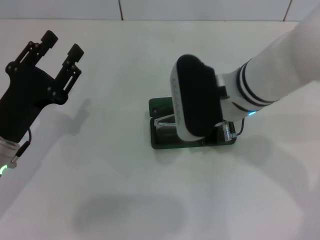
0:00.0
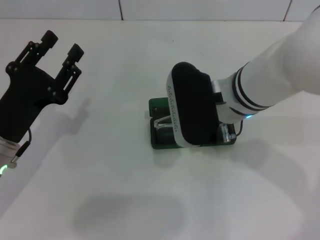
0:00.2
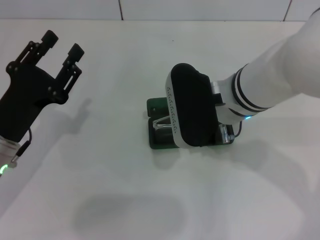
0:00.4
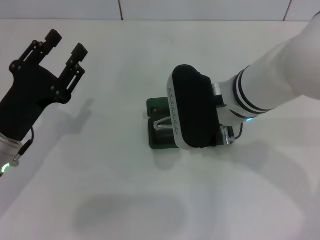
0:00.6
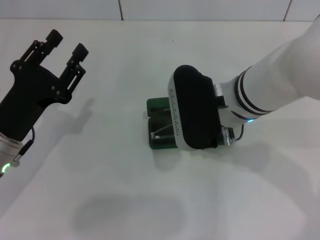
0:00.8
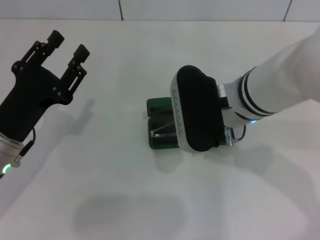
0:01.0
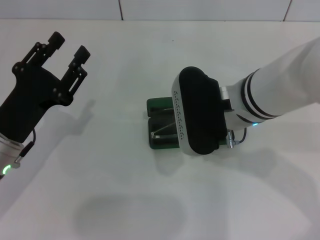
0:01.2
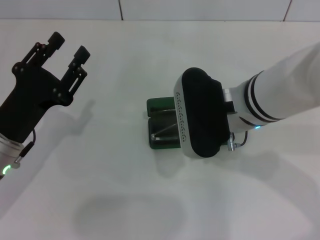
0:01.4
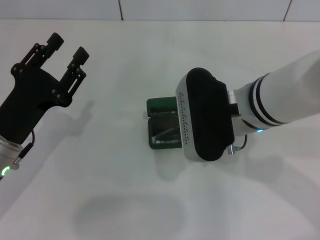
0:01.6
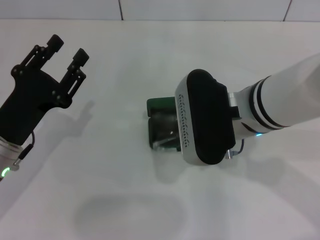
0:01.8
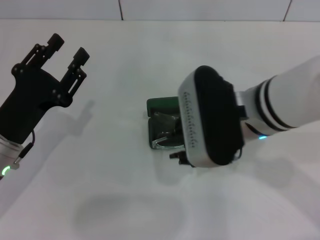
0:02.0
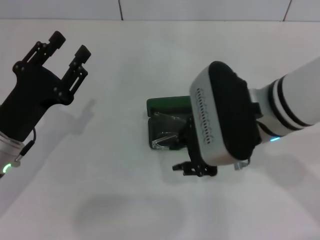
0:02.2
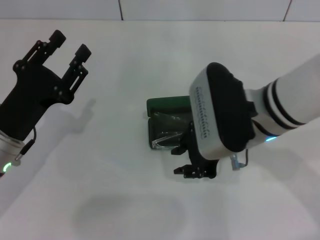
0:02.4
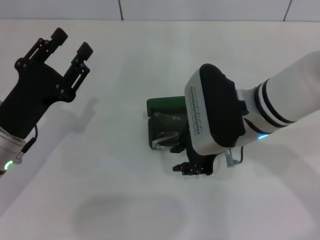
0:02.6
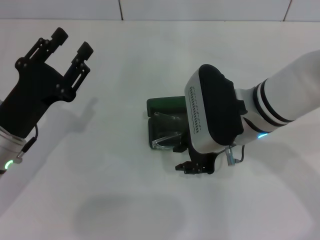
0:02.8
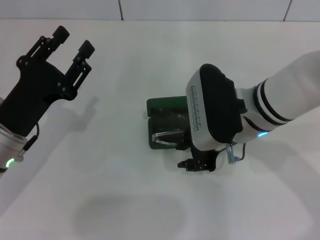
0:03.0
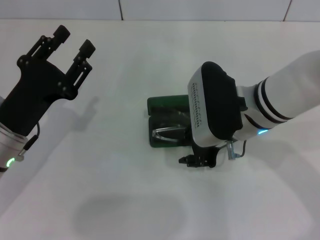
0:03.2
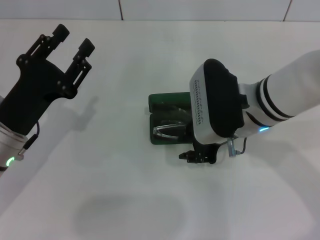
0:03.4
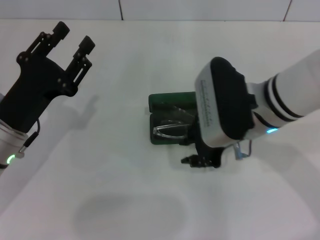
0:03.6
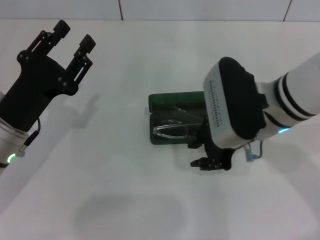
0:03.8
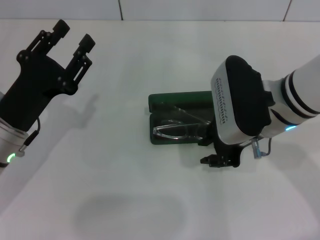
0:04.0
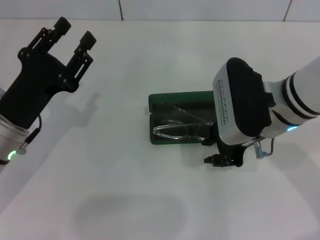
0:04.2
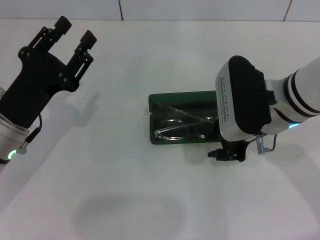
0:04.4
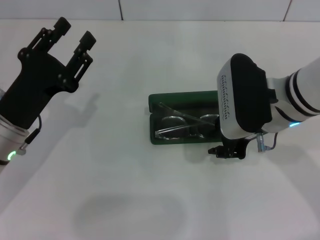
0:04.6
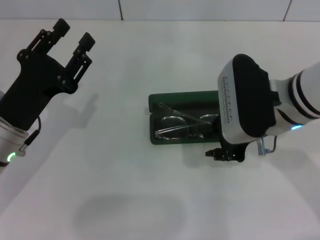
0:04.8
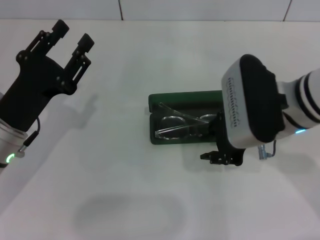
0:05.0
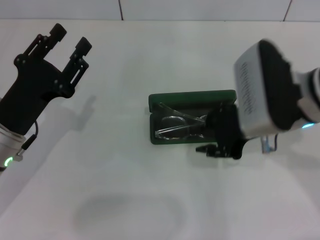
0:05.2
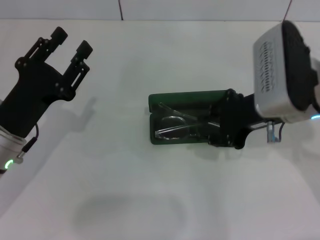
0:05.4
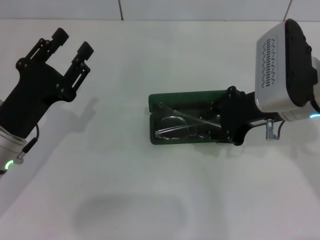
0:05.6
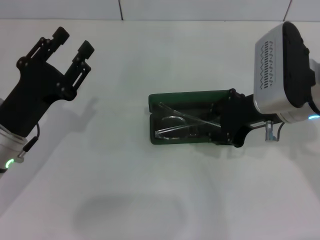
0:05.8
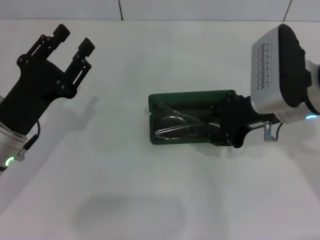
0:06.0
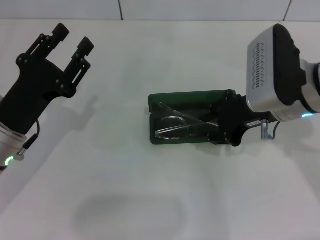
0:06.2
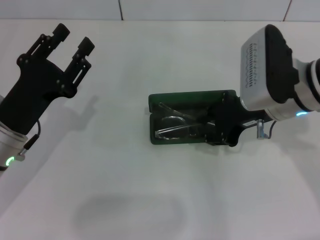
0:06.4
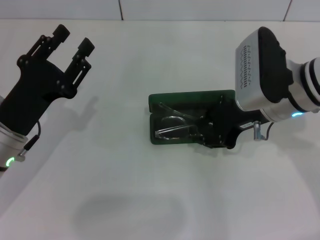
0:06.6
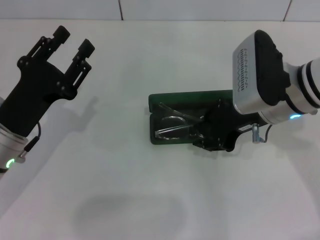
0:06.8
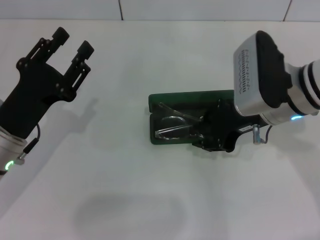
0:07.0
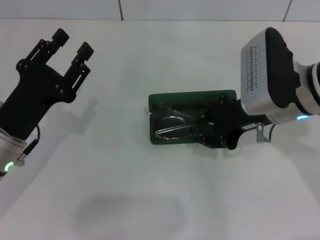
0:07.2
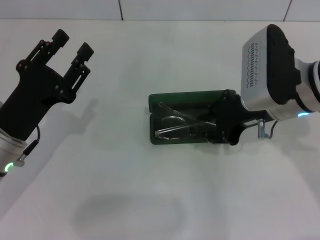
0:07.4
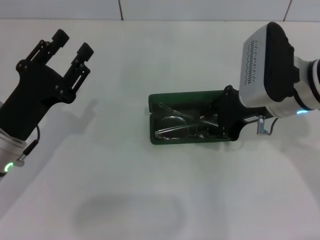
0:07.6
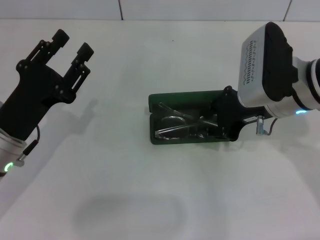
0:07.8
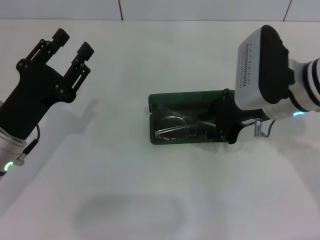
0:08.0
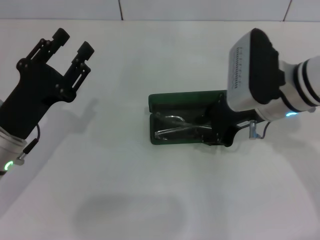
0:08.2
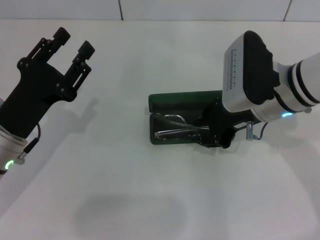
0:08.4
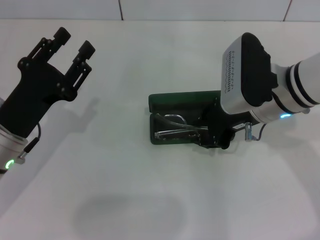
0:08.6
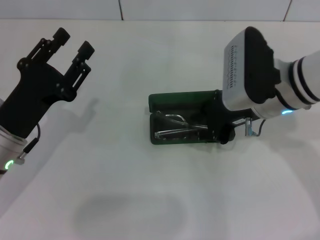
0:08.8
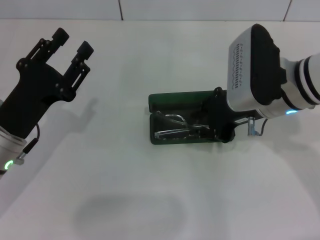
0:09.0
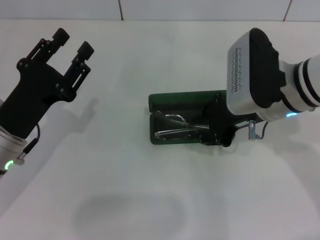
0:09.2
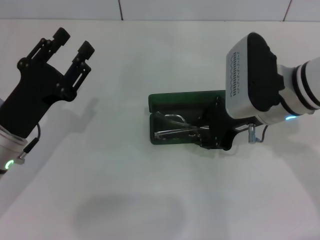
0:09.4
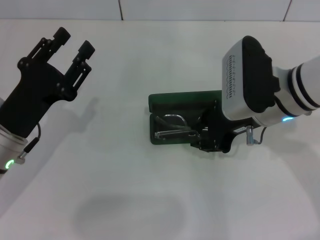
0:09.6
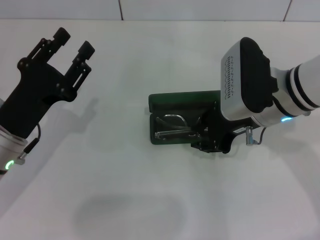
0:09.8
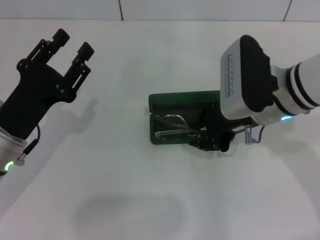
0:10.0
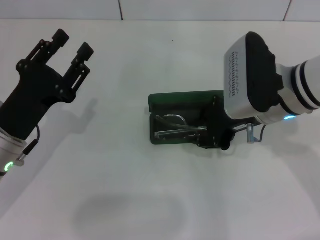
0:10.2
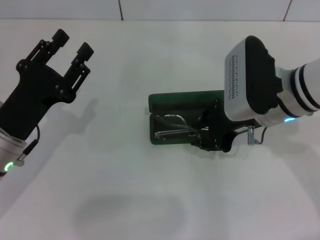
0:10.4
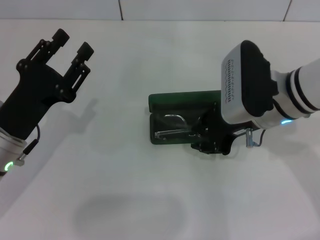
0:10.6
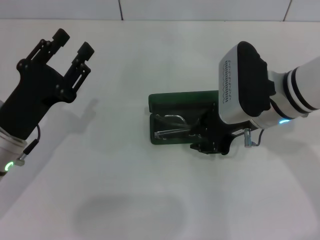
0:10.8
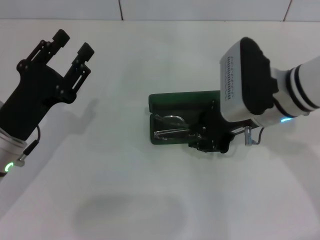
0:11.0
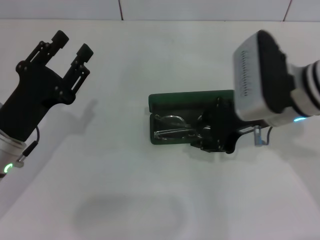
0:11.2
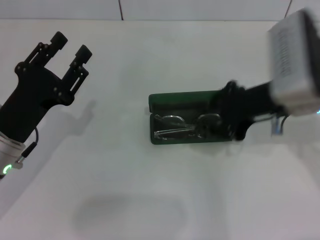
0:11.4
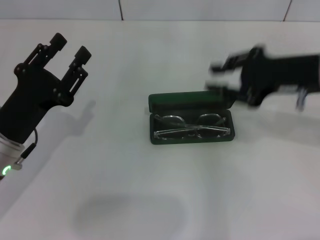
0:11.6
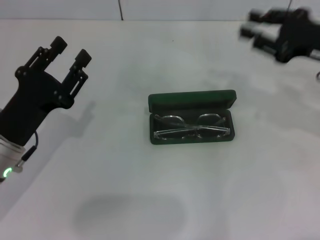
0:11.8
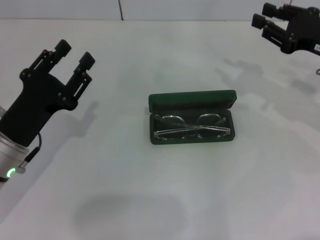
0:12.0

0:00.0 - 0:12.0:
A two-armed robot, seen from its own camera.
0:00.0 - 0:04.4: The grippers make only small movements.
0:04.4 - 0:10.4: The grippers move only a little.
0:10.4 - 0:12.0: The right gripper heads to the right, covering some 15 cm.

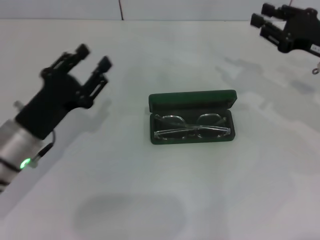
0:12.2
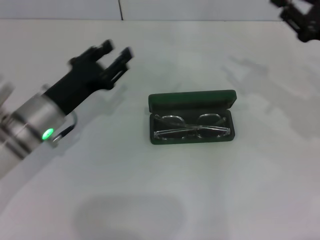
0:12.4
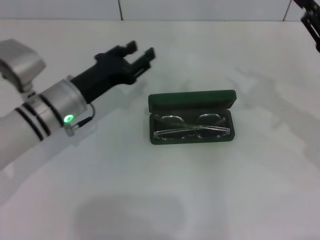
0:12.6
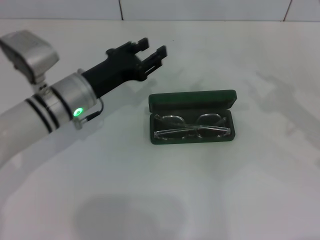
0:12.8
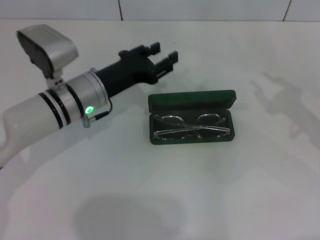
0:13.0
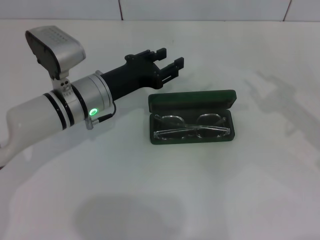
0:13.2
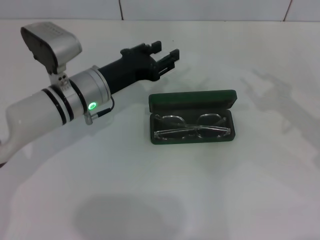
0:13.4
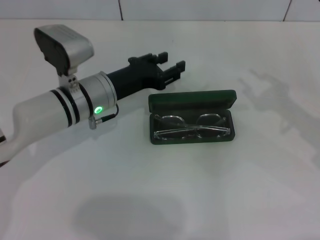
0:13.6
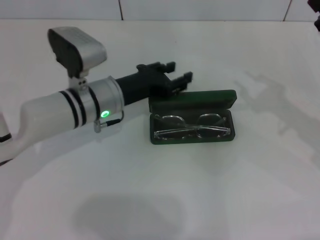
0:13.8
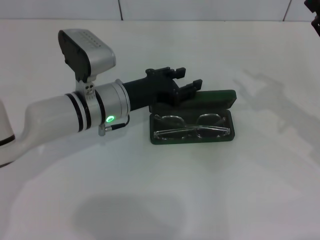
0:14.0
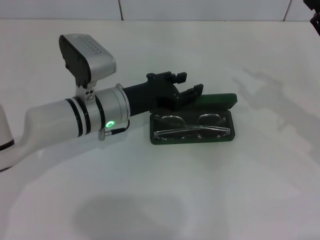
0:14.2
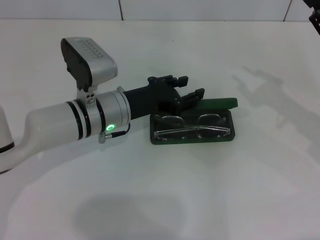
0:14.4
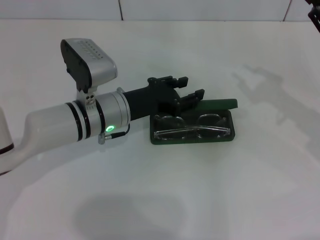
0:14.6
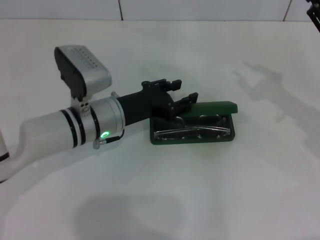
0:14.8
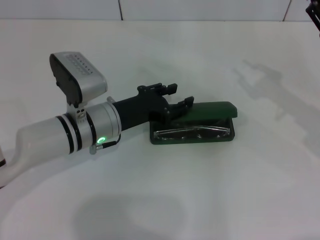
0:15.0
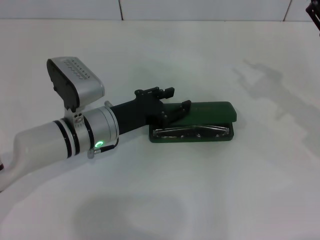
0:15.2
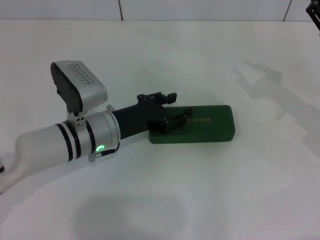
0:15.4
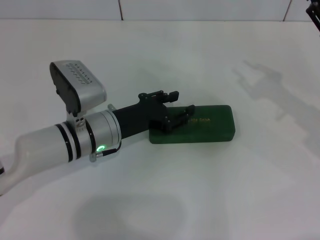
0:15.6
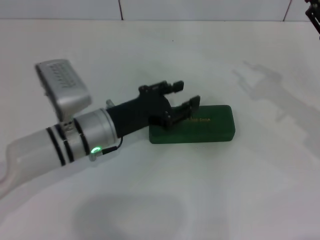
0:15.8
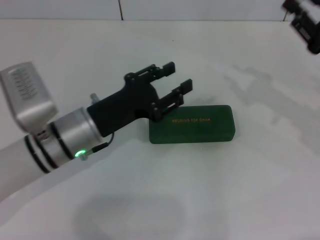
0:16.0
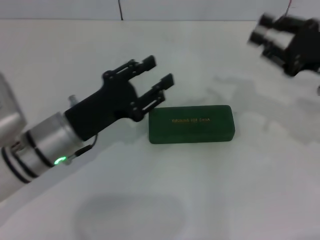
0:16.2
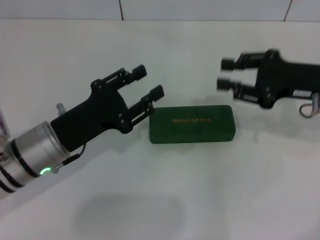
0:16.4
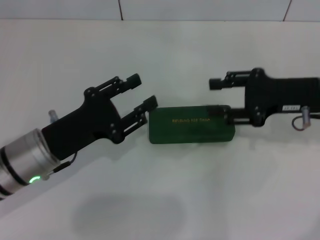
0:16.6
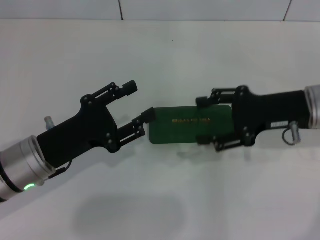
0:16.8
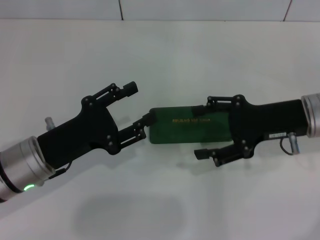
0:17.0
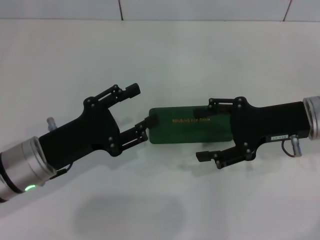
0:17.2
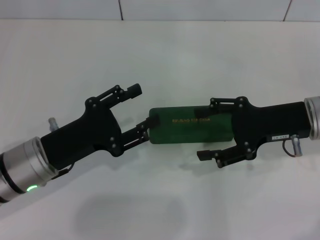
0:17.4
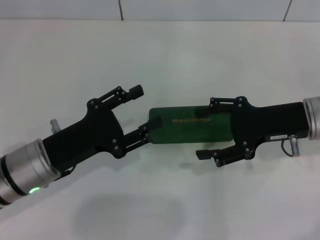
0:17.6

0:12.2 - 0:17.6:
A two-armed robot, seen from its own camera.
Step, 0:12.2 - 0:15.8: Close the glasses case with your left hand.
0:12.2 - 0:13.6: The right gripper heads backward, covering approximately 5 cm, while the left gripper goes roughly 15 cm forward and to the right.
0:13.6 - 0:15.0: The grippers move only a little.
0:15.0 - 0:16.2: The left gripper goes approximately 5 cm backward.
0:16.2 - 0:17.6: The right gripper heads to the left, covering roughly 5 cm, and opens.

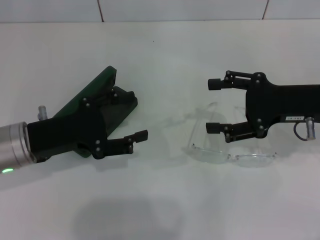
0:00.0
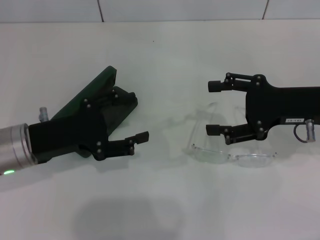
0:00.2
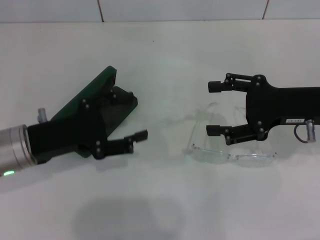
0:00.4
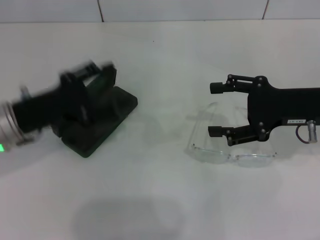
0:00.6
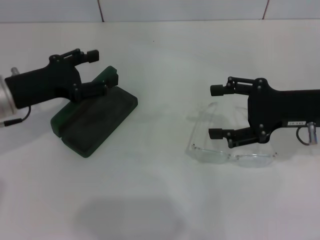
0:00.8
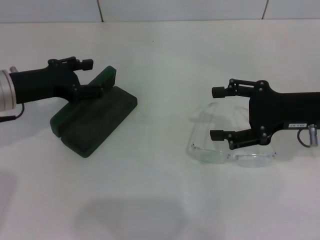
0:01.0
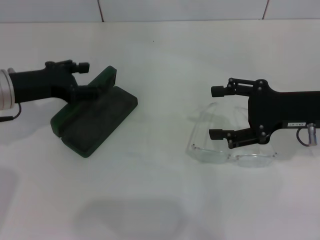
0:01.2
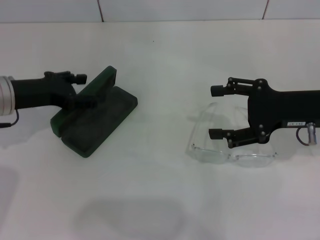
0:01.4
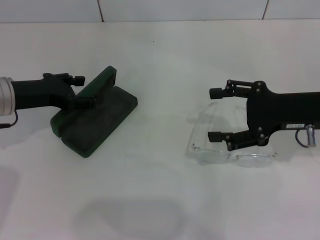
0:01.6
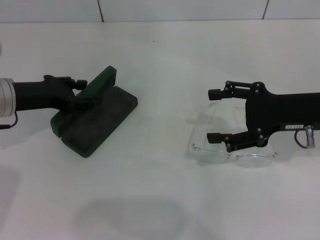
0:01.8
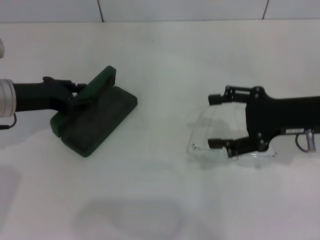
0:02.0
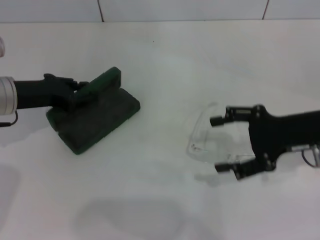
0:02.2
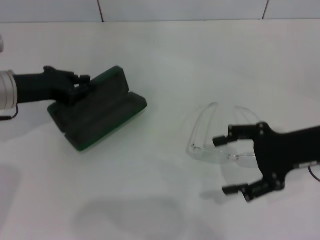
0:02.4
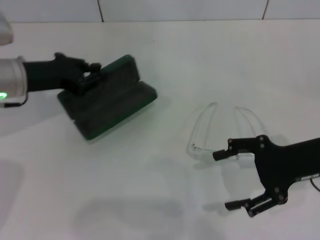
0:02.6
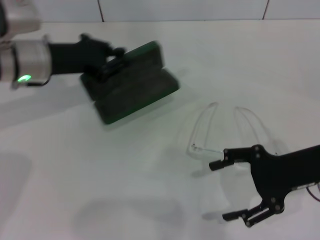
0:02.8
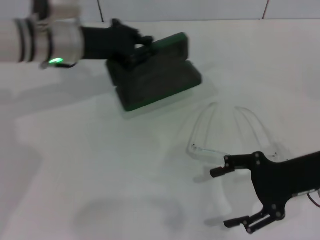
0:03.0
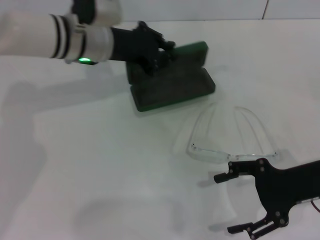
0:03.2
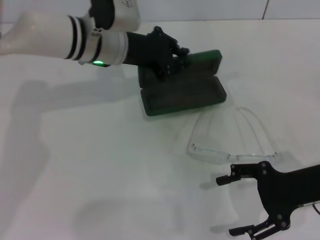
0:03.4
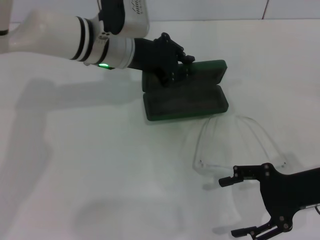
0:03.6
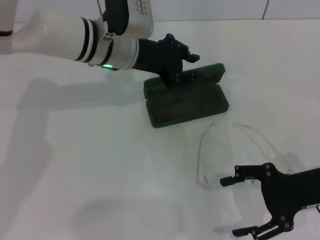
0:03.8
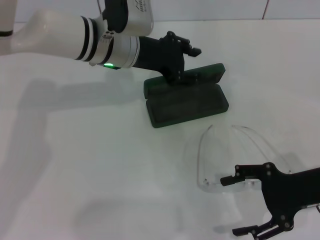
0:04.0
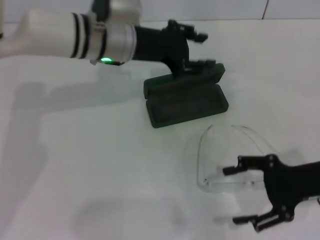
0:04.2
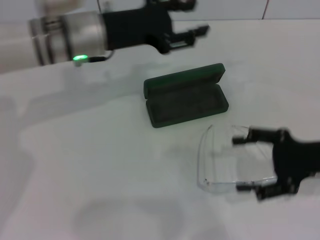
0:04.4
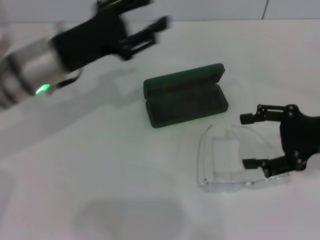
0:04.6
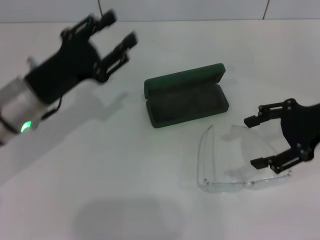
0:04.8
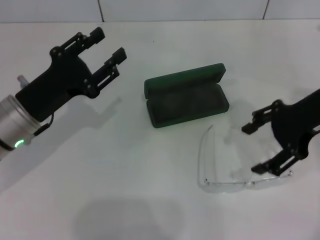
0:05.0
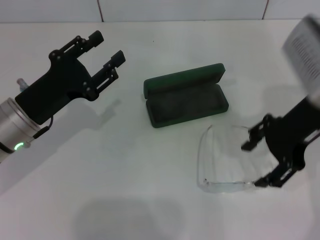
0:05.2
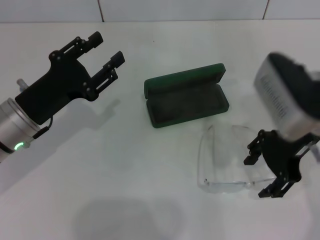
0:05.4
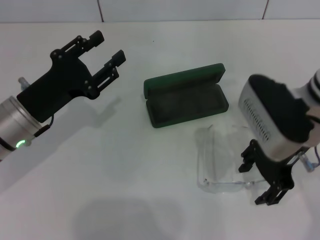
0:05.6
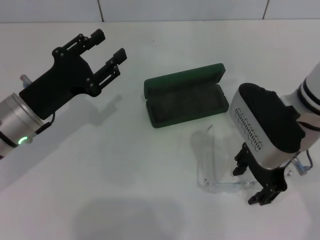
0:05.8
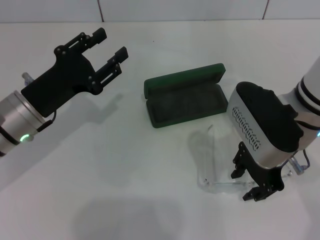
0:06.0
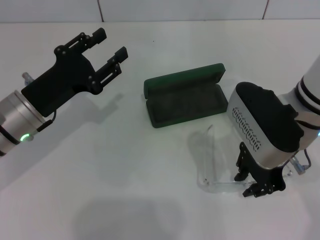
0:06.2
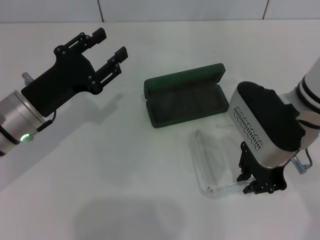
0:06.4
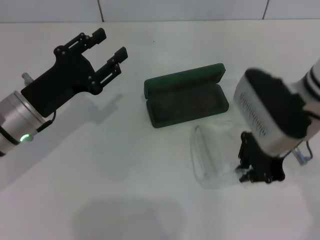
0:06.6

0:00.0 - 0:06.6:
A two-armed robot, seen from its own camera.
Step, 0:00.0 - 0:02.0: Grab the glasses case with your left hand.
Step, 0:02.2 - 0:03.8: Place the glasses case in the center of the table with your left hand.
Step, 0:04.0 - 0:06.2: Grab the eyeglass frame with your right hand.
0:00.0 - 0:01.6: The left gripper shifts roughly 5 cm forward.
0:01.6 - 0:03.2: The right gripper is displaced backward by approximately 5 cm. Meanwhile the left gripper moves to the right and forward, some 15 cm, and closes its fingers.
0:03.2 - 0:05.0: The right gripper moves upward and forward, roughly 10 cm. Meanwhile the left gripper heads backward, to the left and downward, covering some 15 cm, and opens its fingers.
0:05.0 - 0:06.6: The right gripper travels to the left by about 10 cm, and closes.
